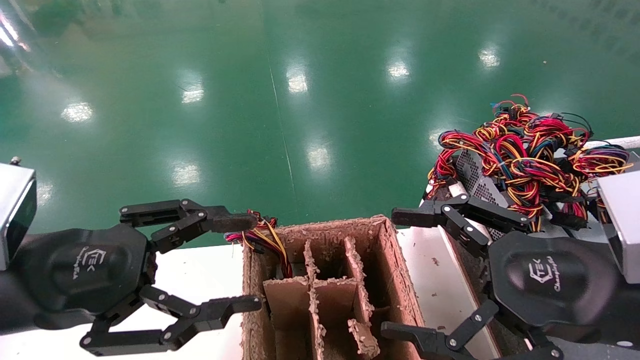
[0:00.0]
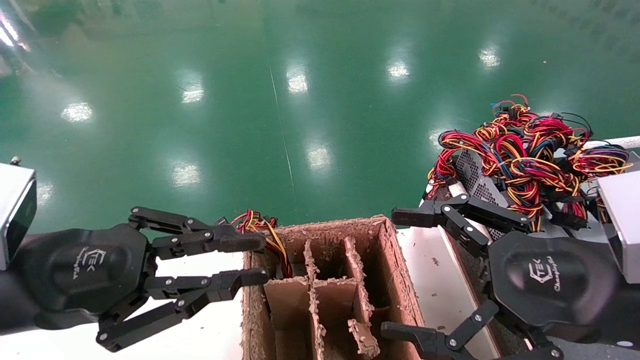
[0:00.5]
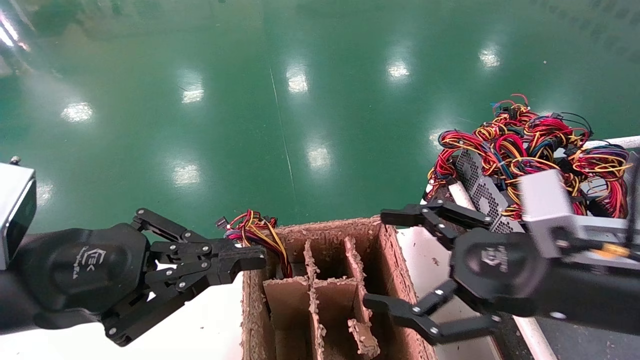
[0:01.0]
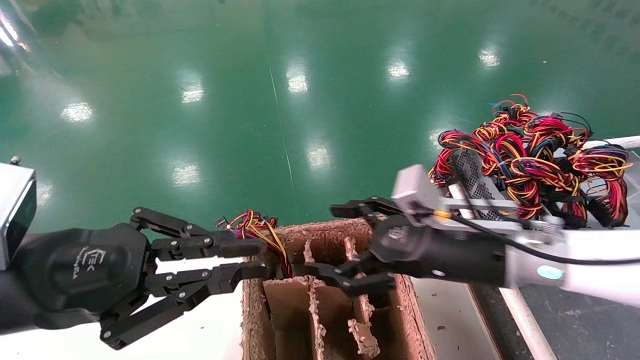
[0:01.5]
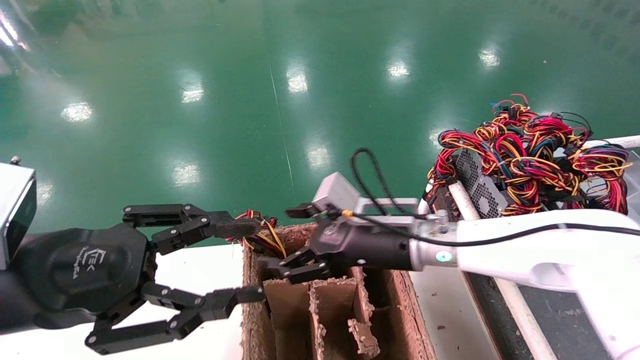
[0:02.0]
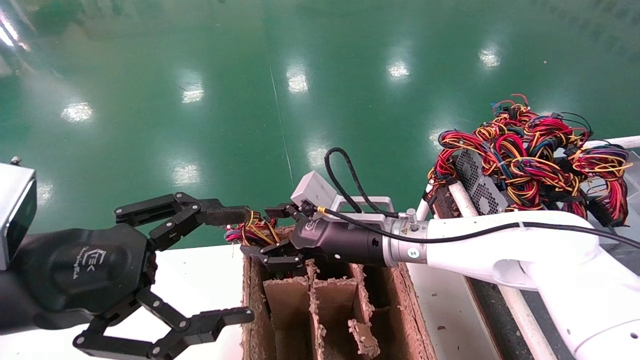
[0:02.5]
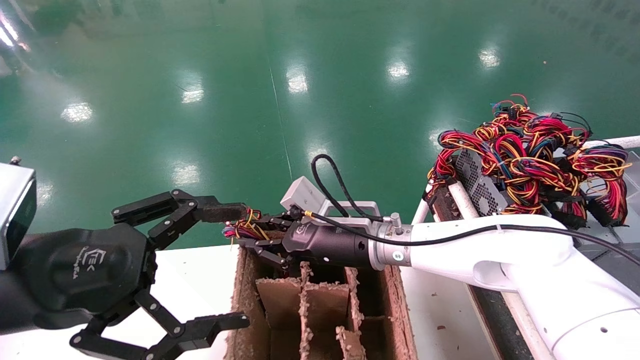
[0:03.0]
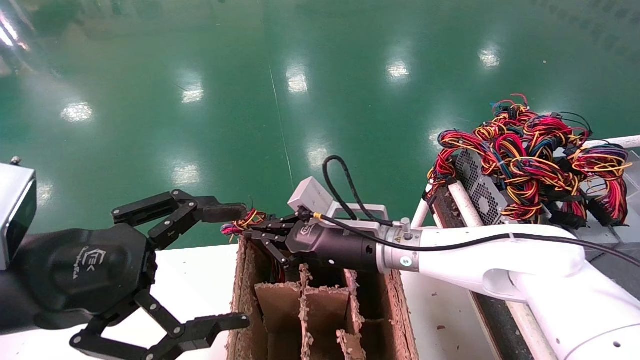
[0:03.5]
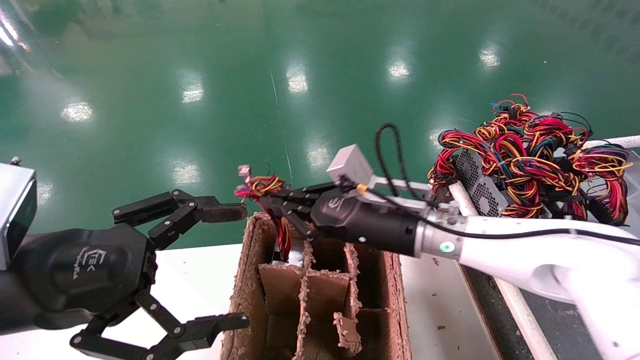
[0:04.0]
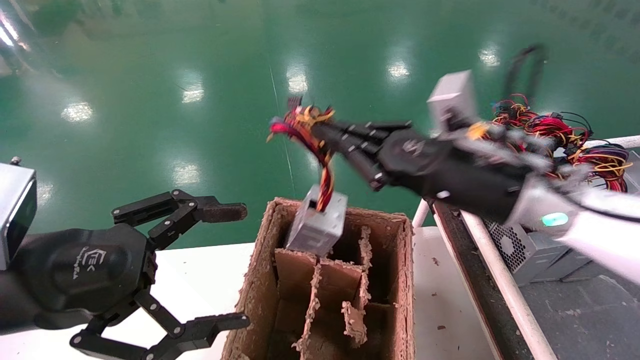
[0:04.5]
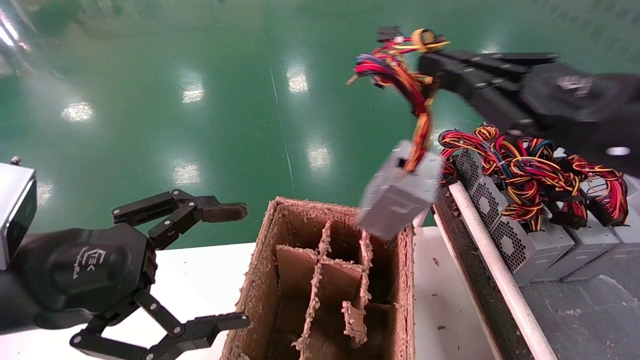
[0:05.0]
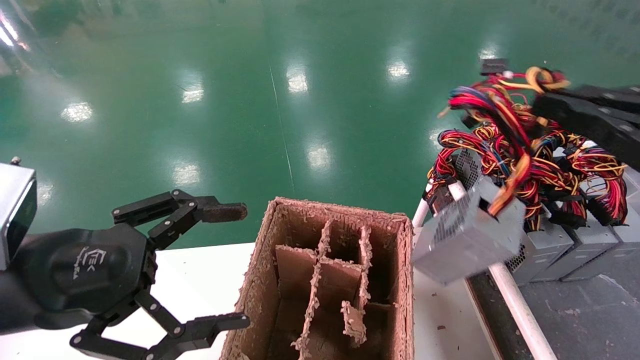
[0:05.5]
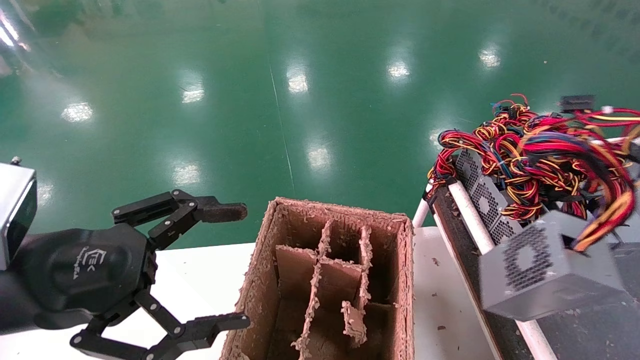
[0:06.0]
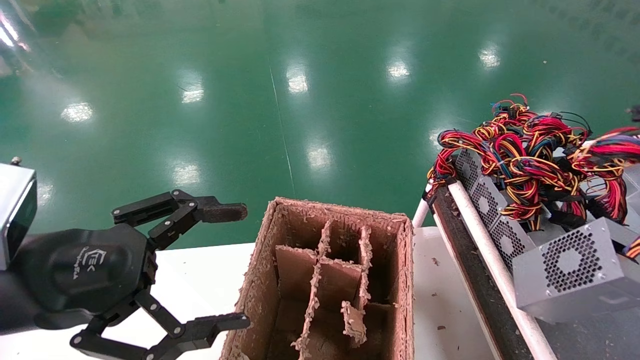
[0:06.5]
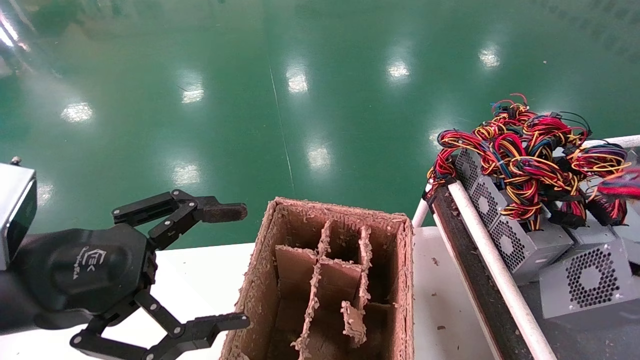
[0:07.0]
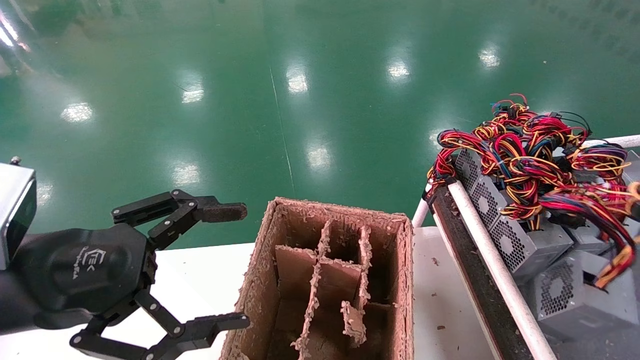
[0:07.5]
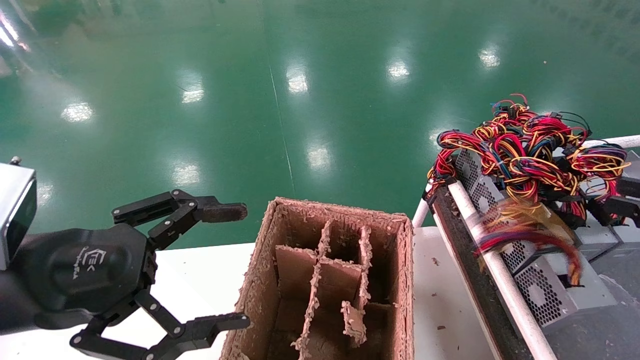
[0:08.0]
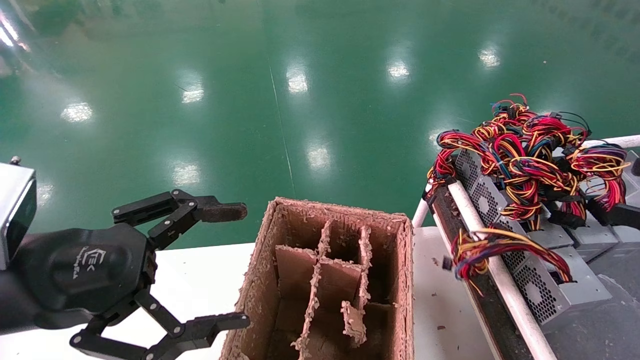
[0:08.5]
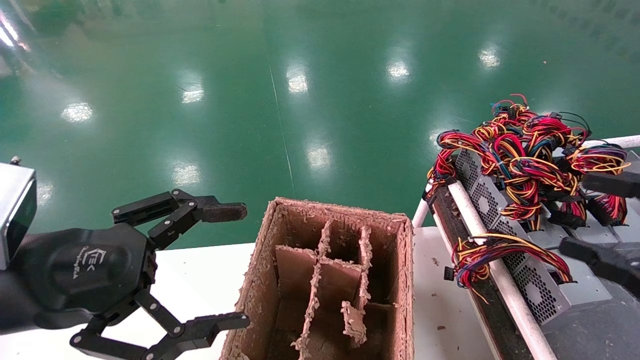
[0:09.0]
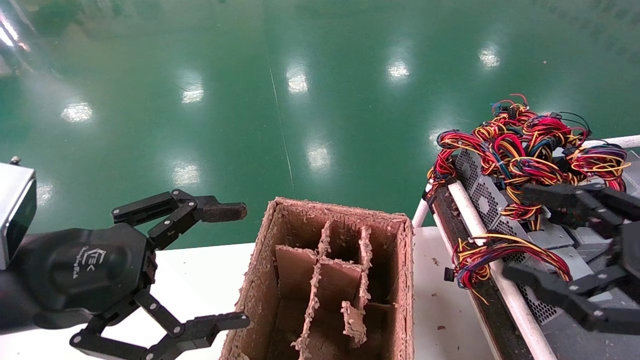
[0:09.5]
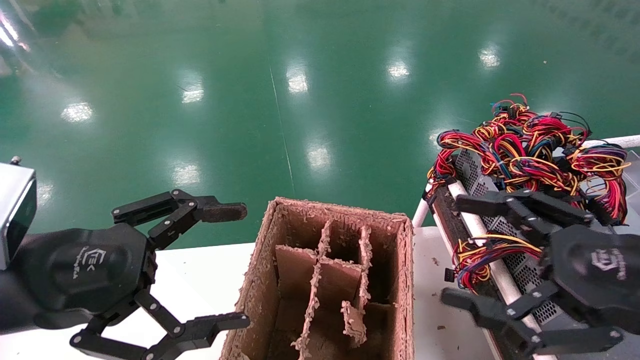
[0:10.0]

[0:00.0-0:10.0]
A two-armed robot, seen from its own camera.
Step, 0:01.0 to 0:03.0: Grab and lift the power supply from the large box.
Step, 0:03.5 to 0:08.0: Place the power supply on the operating table.
0:00.0 to 0:02.0: The right gripper moves forward and to the left, approximately 25 cm. Meanwhile the left gripper closes, then reopens.
0:02.0 to 0:04.0: The left gripper opens up; the right gripper closes up.
0:04.0 to 0:06.0: The right gripper goes about 40 cm to the right and backward.
0:08.0 to 0:10.0: The right gripper travels to the left by some 15 cm, and opens its fingers.
